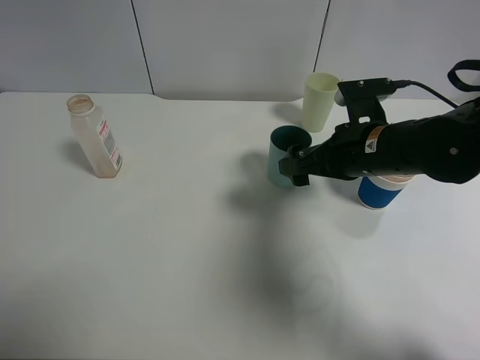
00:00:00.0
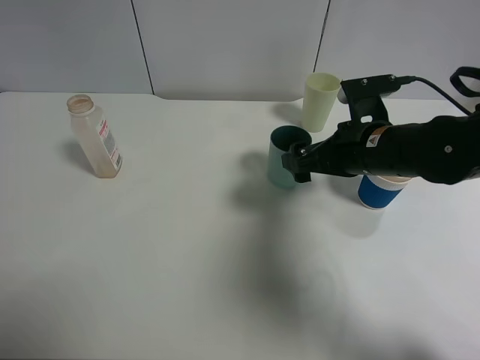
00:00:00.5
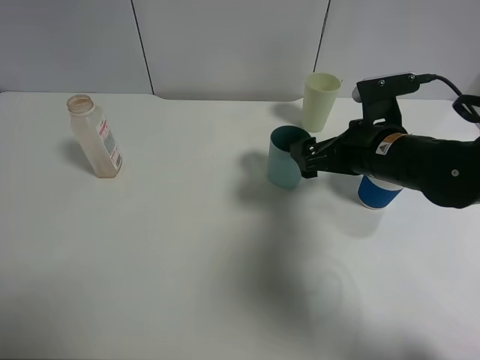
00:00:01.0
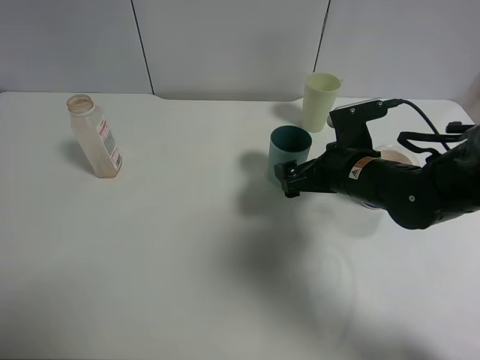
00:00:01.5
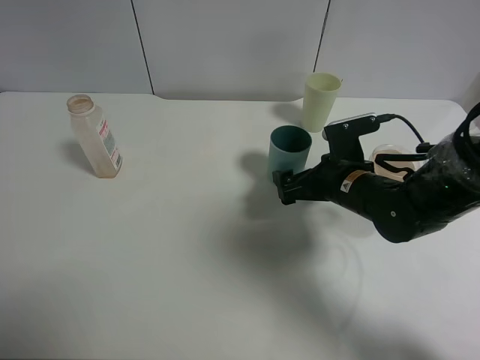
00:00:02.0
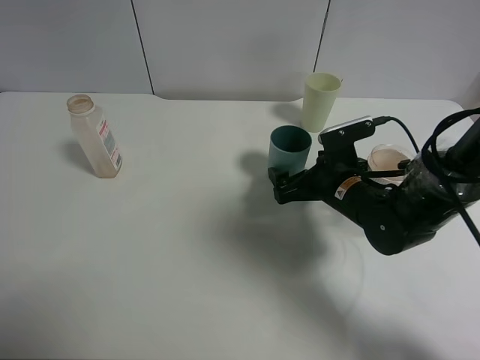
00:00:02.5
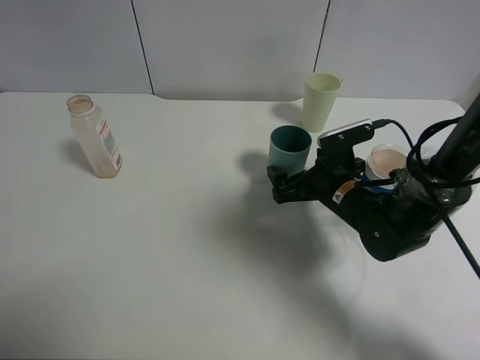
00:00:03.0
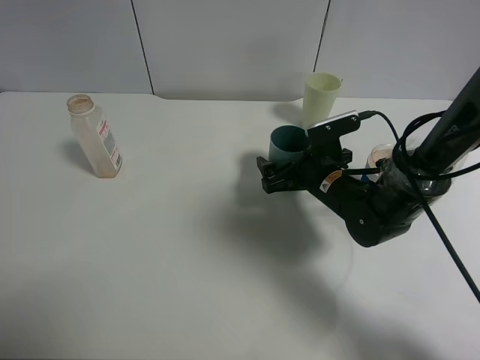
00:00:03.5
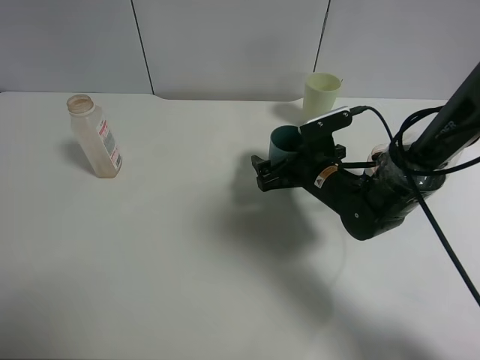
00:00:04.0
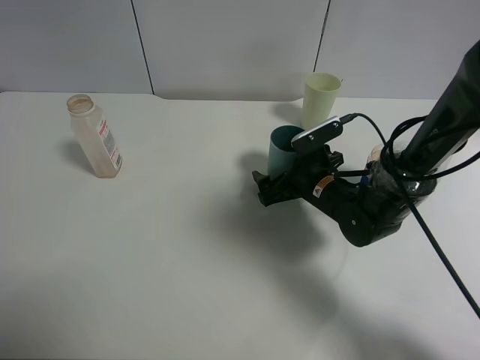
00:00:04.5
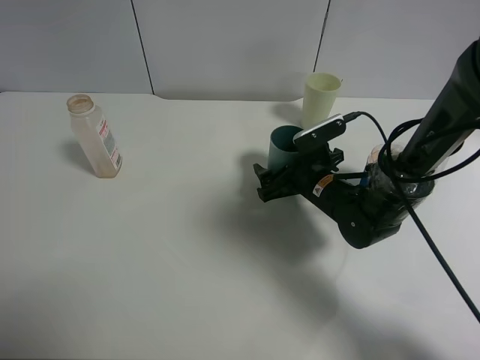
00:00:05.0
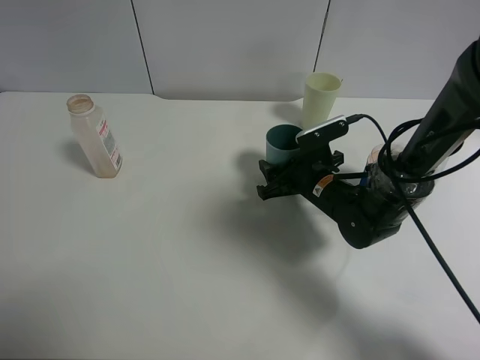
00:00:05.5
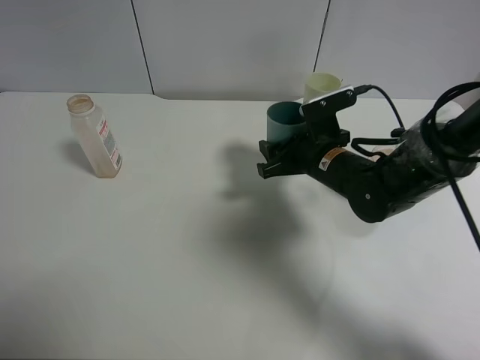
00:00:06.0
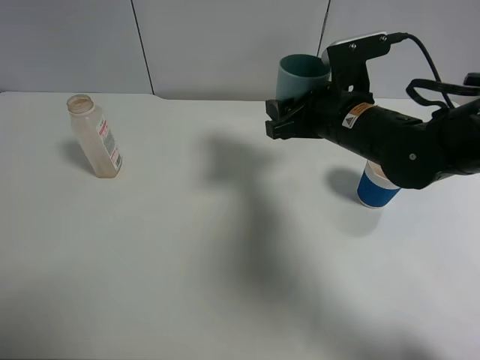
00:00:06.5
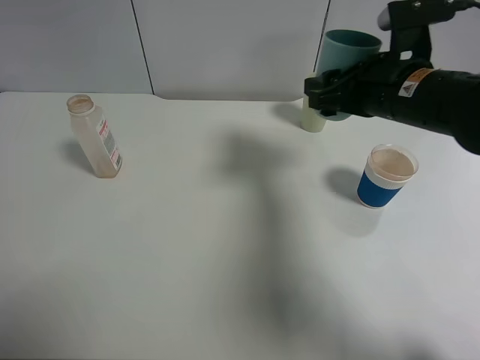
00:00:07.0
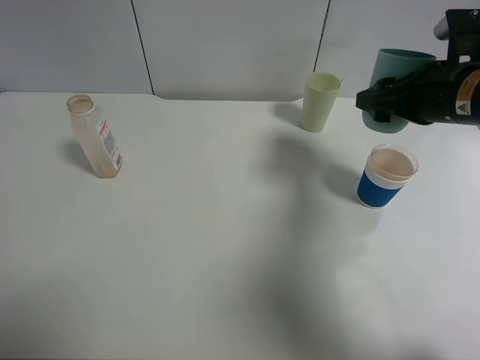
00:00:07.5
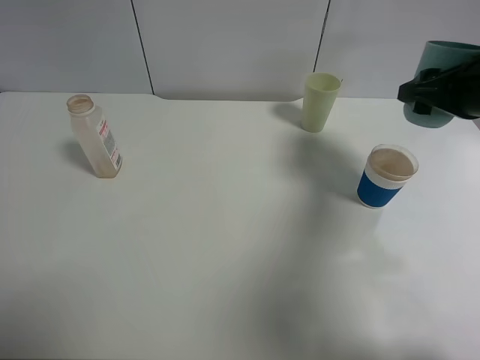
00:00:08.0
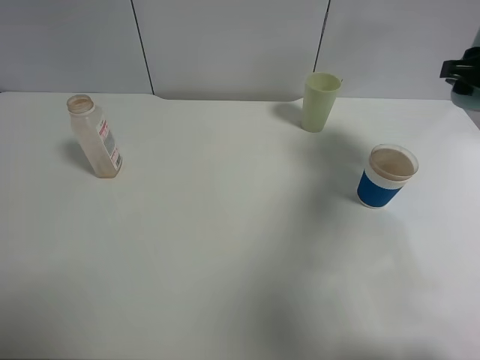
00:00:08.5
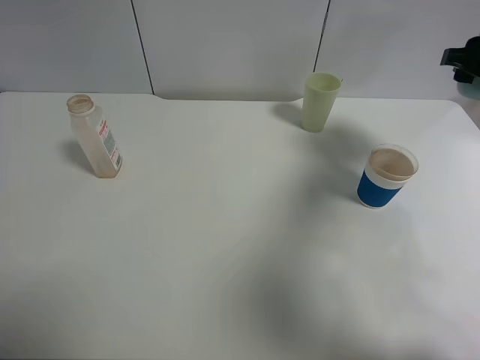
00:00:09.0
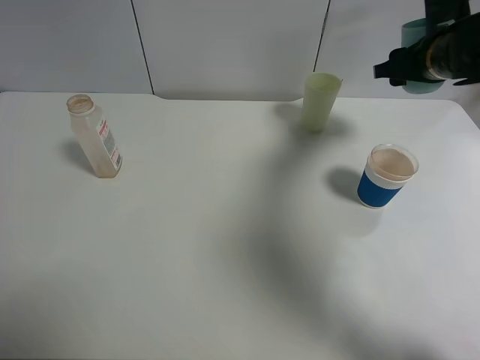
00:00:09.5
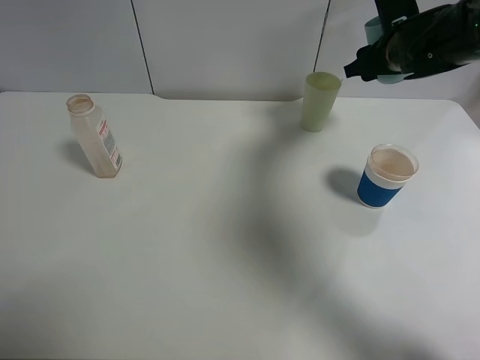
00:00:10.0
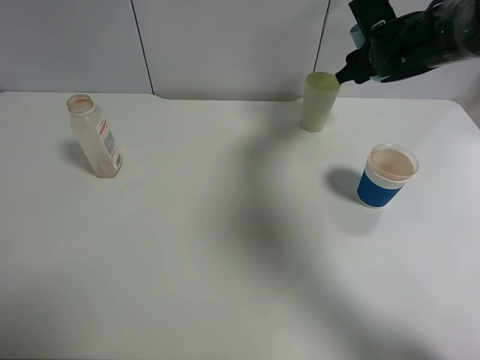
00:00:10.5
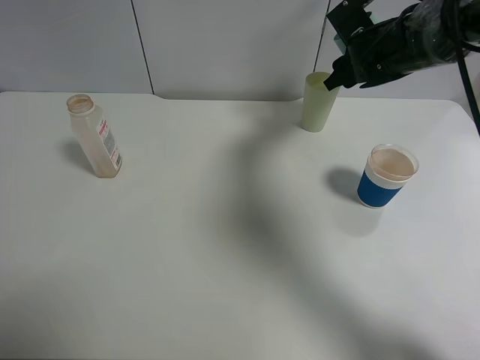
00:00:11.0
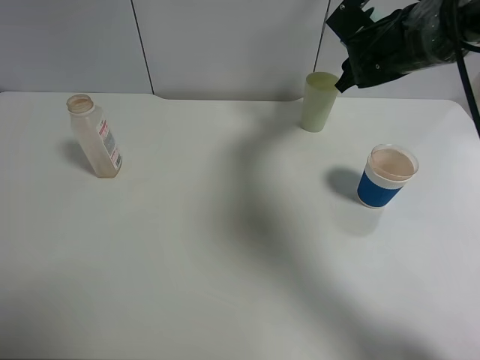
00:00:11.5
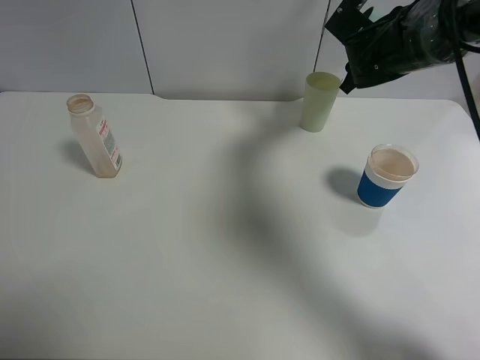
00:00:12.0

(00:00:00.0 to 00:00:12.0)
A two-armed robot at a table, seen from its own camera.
Task of the whole recording: use a clamp to hold the bottle of the drink, pour the beverage into a random cup, then clamp the cup containing the drink and pour the drink into another random cup.
Step, 00:00:00.0 - 00:00:05.5: Pick up the blue plastic cup bottle with right gripper.
00:00:00.0 - 00:00:02.0: The right gripper is displaced downward by about 5 cm.
00:00:02.0 - 00:00:04.0: The grippers stay close to where they were, moving slightly.
00:00:04.0 - 00:00:06.0: The right gripper closes.
00:00:06.0 - 00:00:08.0: The right gripper heads to the right and upward, covering approximately 20 cm.
00:00:08.0 - 00:00:10.0: The right gripper travels forward and to the left by approximately 15 cm.

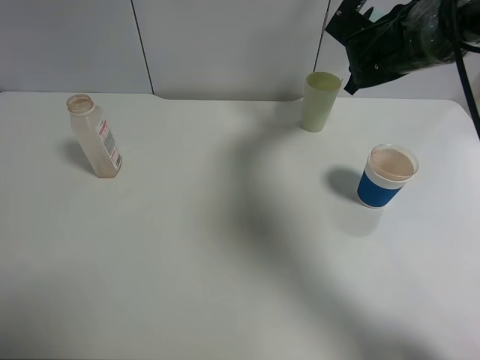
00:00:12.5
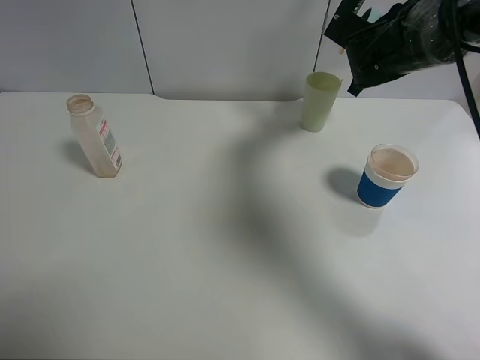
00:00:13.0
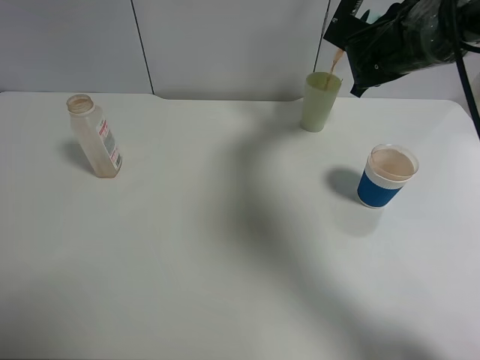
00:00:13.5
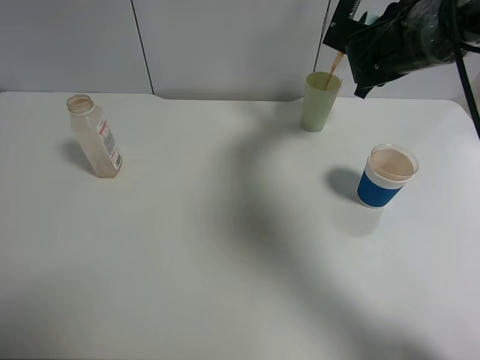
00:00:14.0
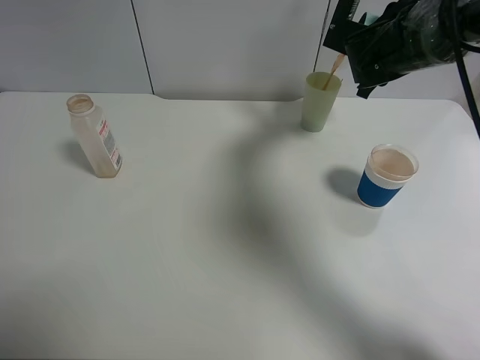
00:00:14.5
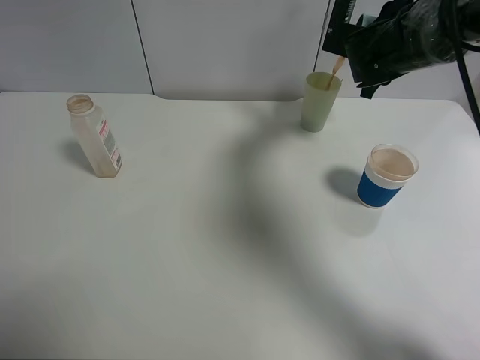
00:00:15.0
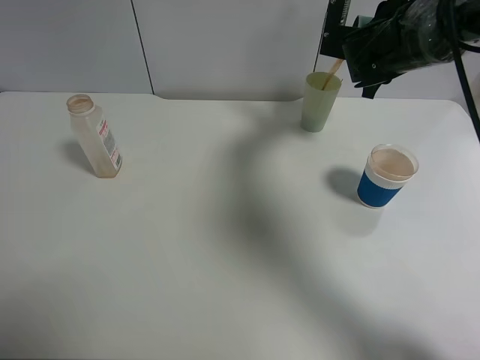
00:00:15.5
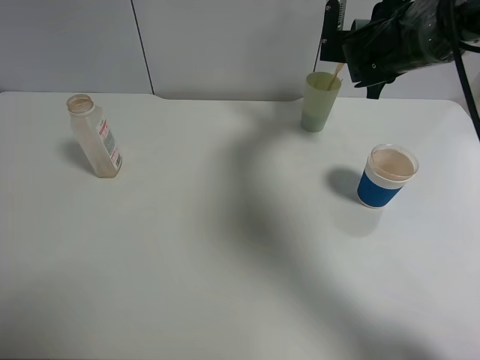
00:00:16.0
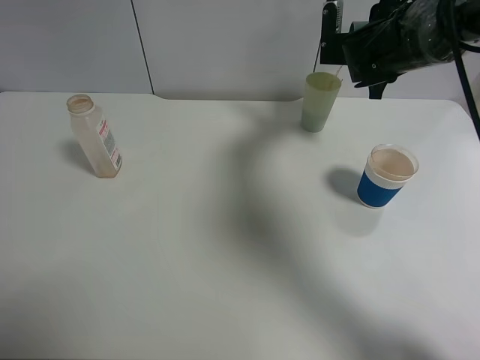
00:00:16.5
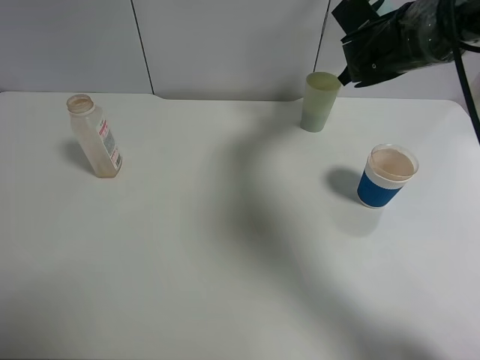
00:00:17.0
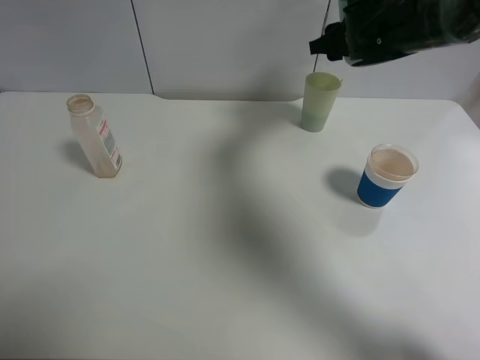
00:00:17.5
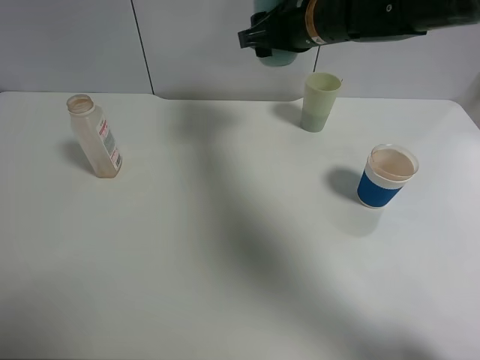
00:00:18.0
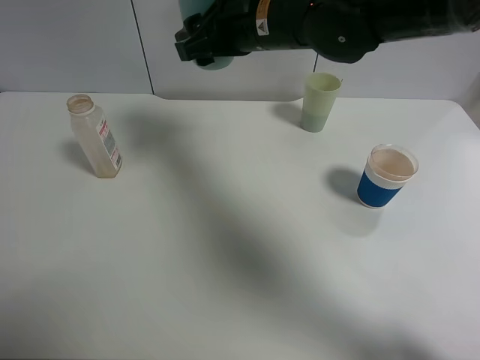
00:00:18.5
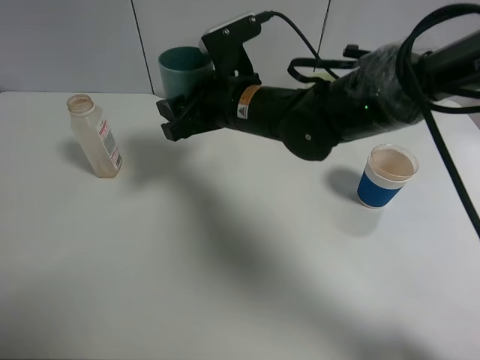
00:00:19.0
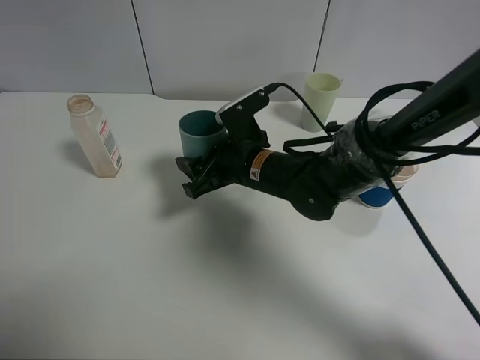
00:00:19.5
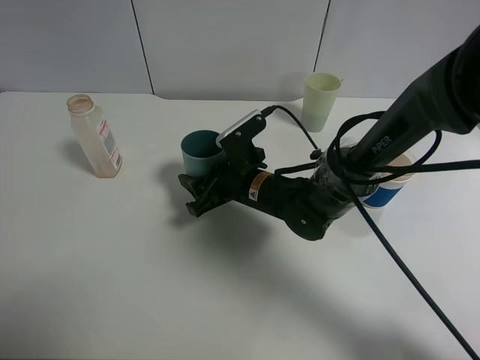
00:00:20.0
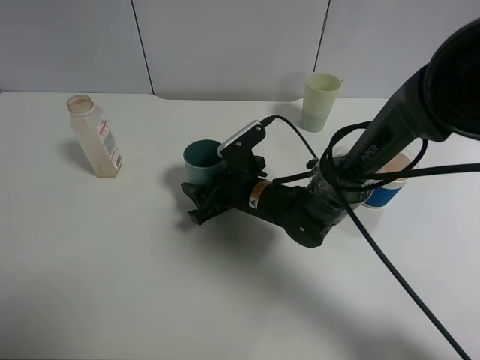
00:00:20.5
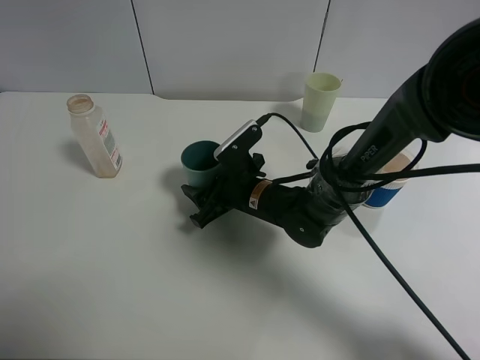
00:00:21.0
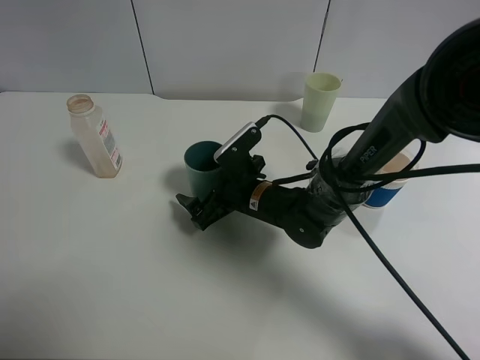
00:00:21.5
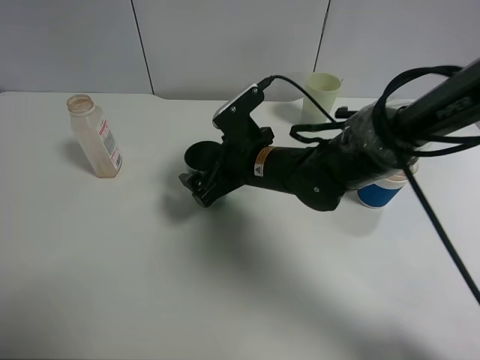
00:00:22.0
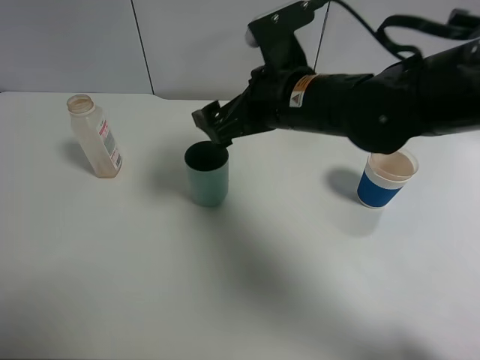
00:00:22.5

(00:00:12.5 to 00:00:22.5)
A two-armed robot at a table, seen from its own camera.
Task of the whole recording: use a clamp to hold the bottle of the drink, pour the beverage into a random cup, then clamp the cup containing the drink and pour the drink into another random cup.
Step, 00:00:12.5 - 00:00:16.5: Pour the drink into the green plastic cup with right gripper.
Step, 00:00:17.0 - 00:00:21.0: Place the blue plastic cup on the table with right gripper.
00:00:12.5 - 00:00:14.5: The grippers move only a little.
00:00:16.5 - 00:00:18.5: The right gripper moves to the left and backward, some 20 cm.
00:00:18.5 - 00:00:20.5: The right gripper shifts roughly 20 cm downward.
00:00:20.5 - 00:00:22.5: The right gripper heads upward, covering some 20 cm, and opens its fingers.

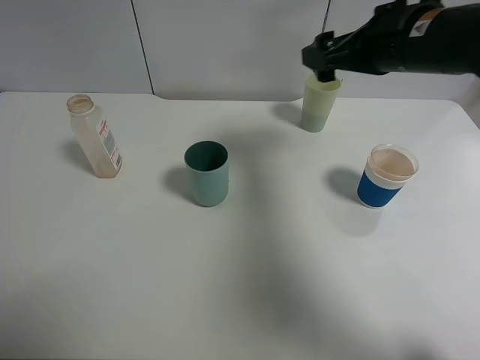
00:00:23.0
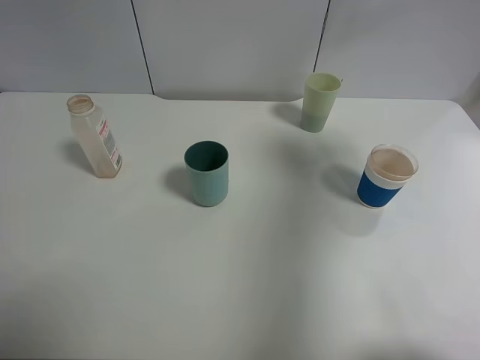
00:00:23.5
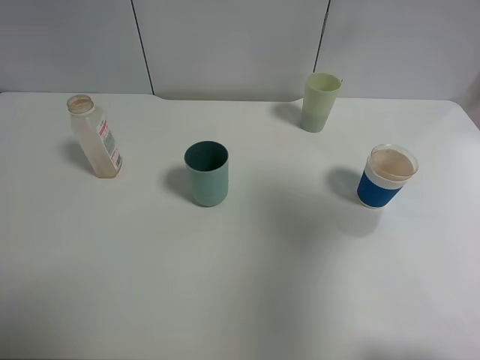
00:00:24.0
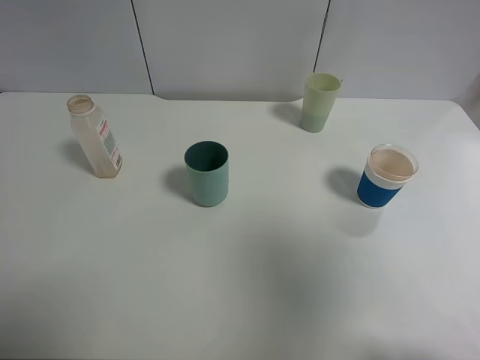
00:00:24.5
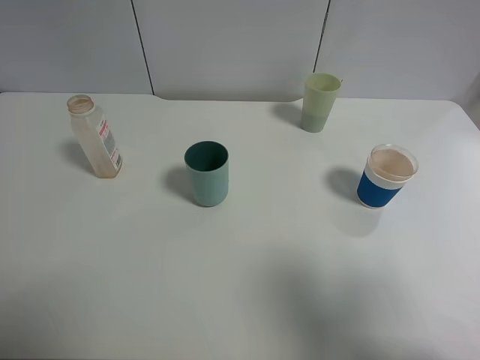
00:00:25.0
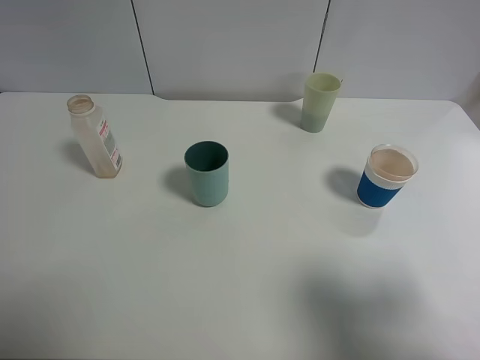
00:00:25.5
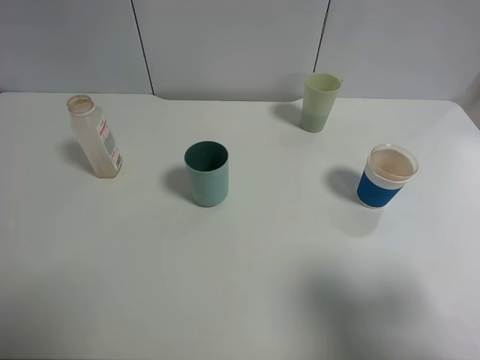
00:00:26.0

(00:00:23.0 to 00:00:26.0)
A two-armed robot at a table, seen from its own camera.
Task of the whole recording: use a clamp to hold the bottle of the drink, pour the beverage into a random cup, then clamp the cup containing the drink and pour the drink into another random cup.
00:00:23.0 - 00:00:24.5: The right gripper goes roughly 30 cm backward.
00:00:24.5 - 00:00:26.0: The right gripper travels downward by roughly 10 cm.
